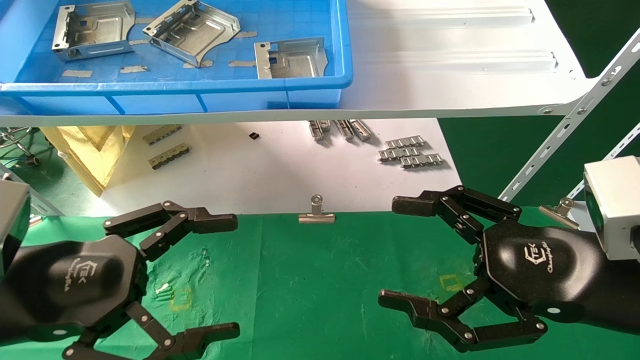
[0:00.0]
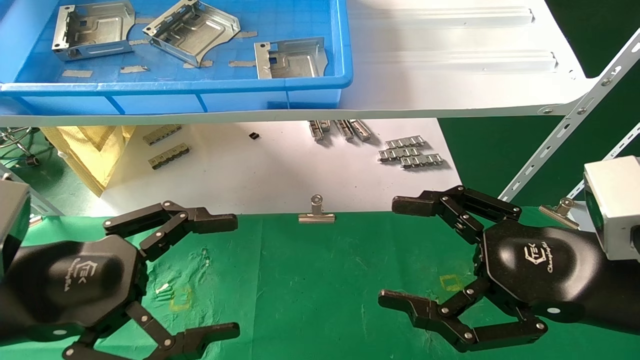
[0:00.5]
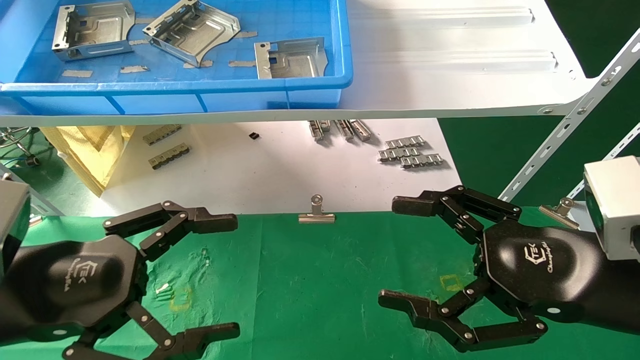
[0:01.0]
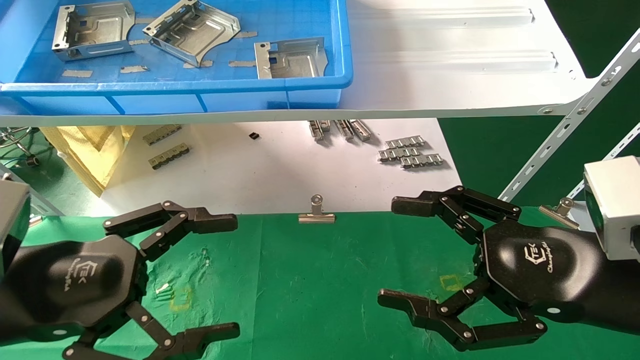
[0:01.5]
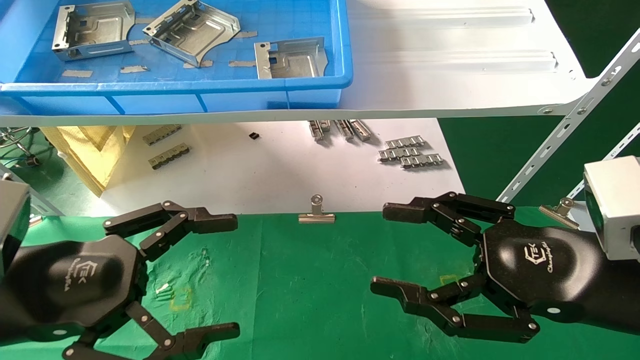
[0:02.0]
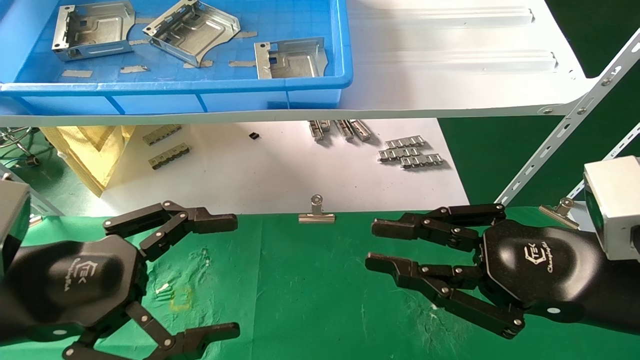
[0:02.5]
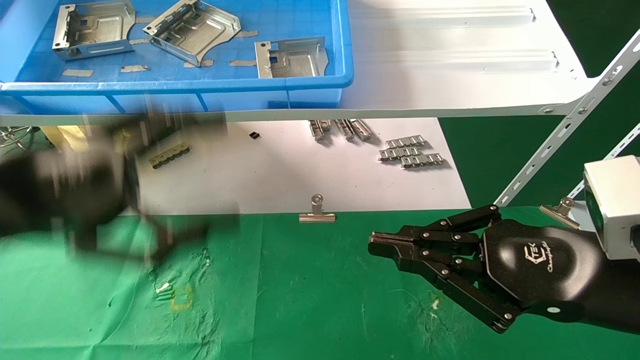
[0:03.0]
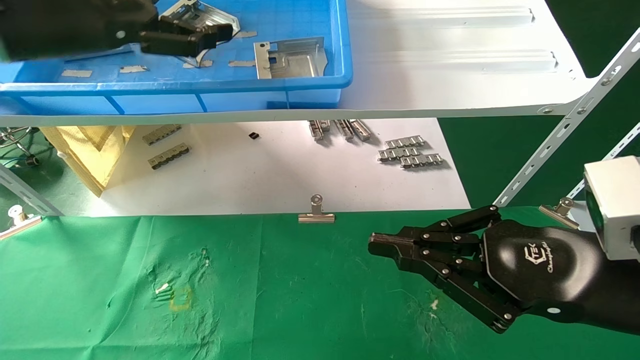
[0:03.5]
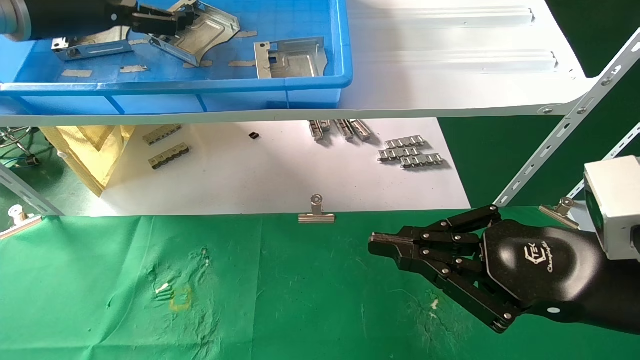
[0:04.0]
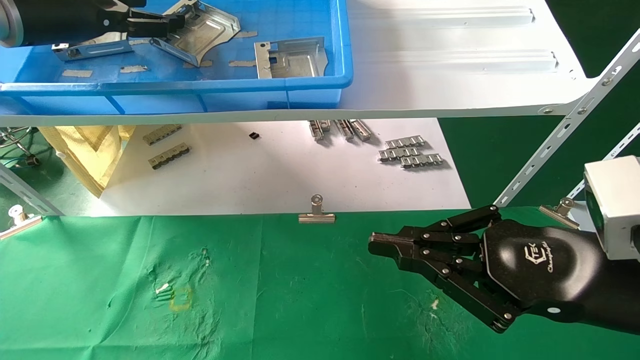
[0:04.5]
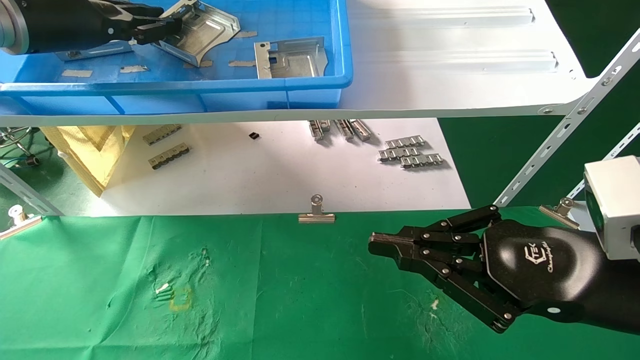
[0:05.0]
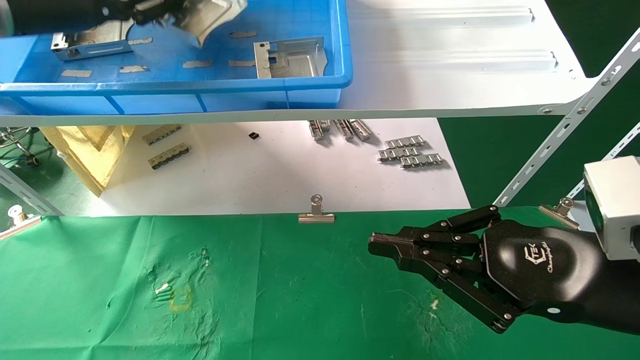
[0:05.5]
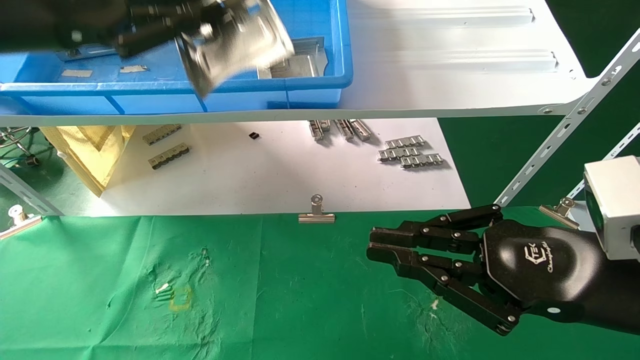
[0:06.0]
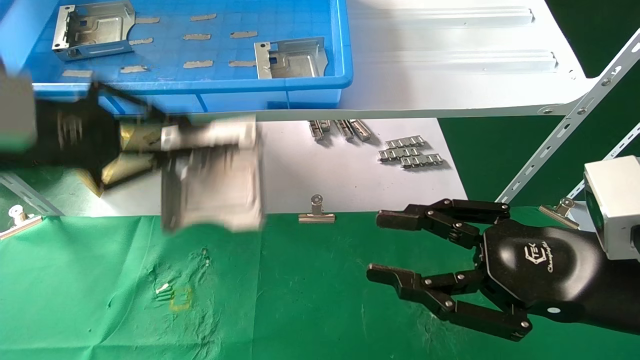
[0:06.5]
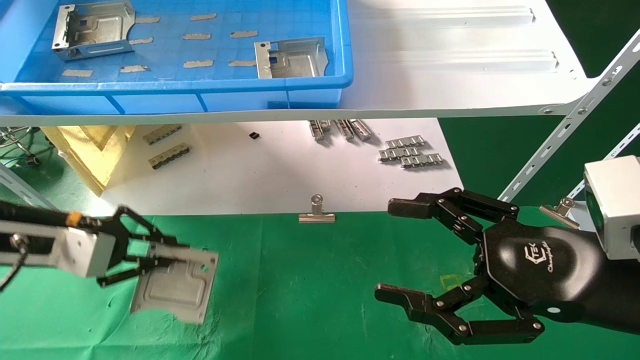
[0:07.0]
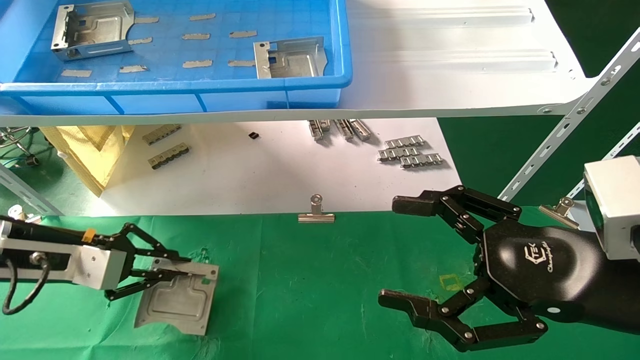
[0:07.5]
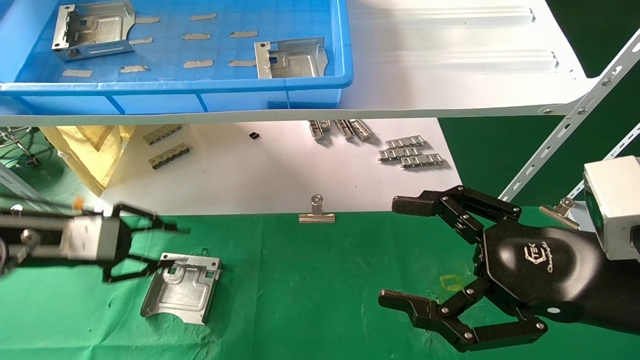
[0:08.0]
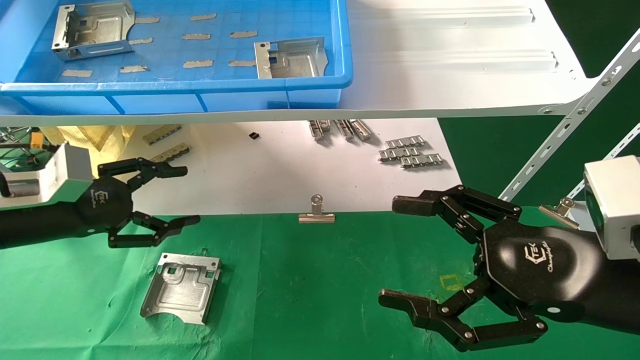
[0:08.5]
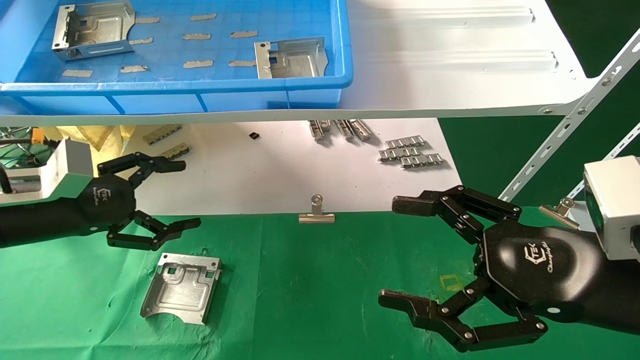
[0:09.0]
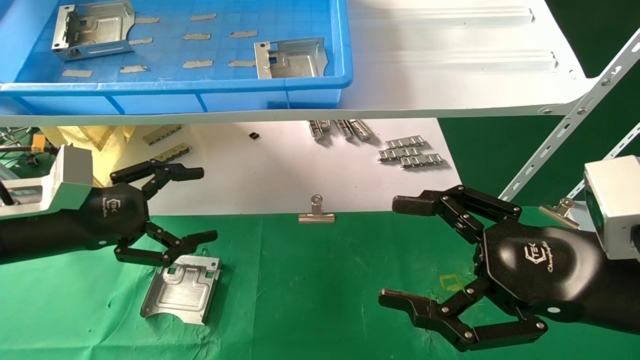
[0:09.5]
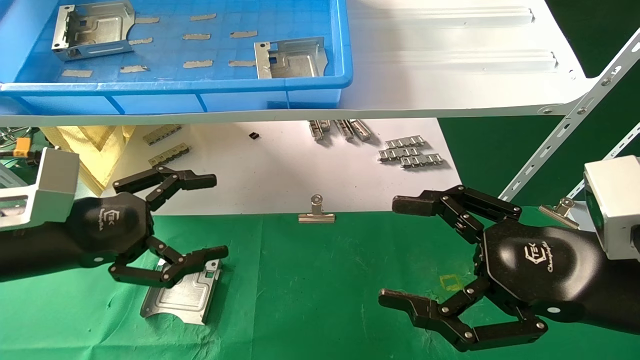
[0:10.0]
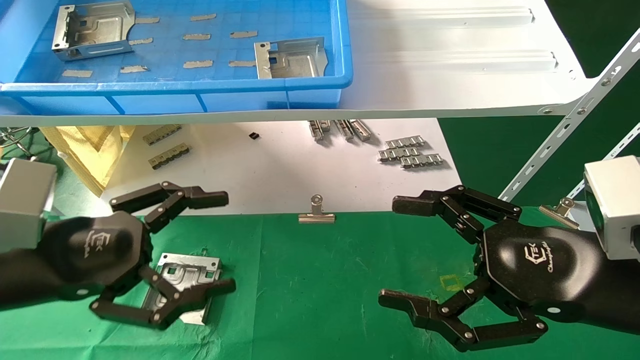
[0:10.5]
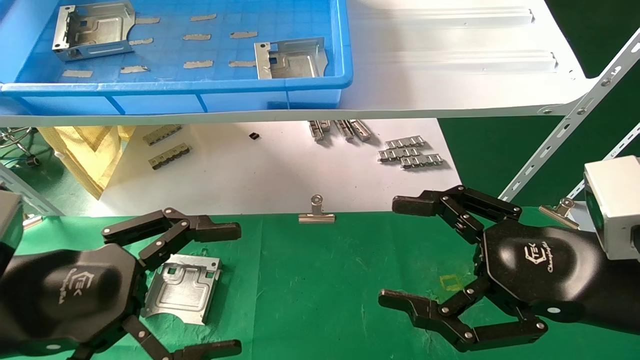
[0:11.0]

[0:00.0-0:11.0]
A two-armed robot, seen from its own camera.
Task of the whole recording: use the mechanical arm to pick up the parts and place them on the table.
Step, 0:03.5 to 0:05.0: Pick up the hard drive bracket from the feeding area.
Step, 0:05.5 to 0:08.0: Place the hard drive bracket into the box.
0:00.0 to 0:02.0: Both grippers stay put.
0:02.0 to 0:03.5: The right gripper closes up, while the left gripper shifts some 25 cm upward and forward.
0:03.5 to 0:05.5: The left gripper closes up.
0:05.5 to 0:07.5: The left gripper goes approximately 25 cm downward, while the right gripper opens up.
0:07.5 to 0:09.0: The left gripper opens up.
0:09.0 to 0:11.0: The left gripper shifts approximately 15 cm backward and to the right.

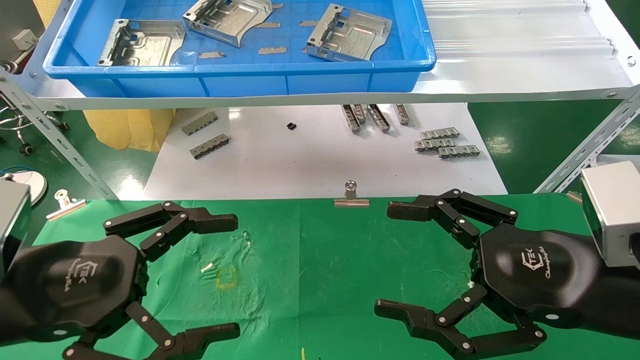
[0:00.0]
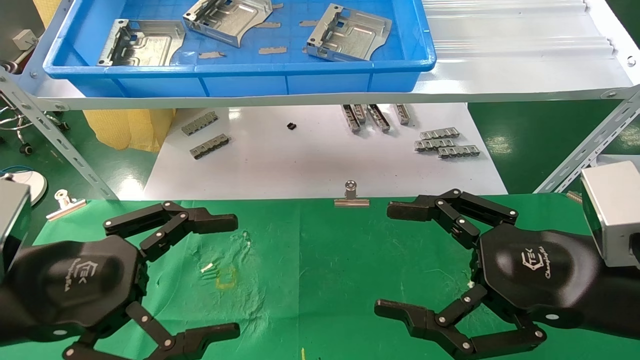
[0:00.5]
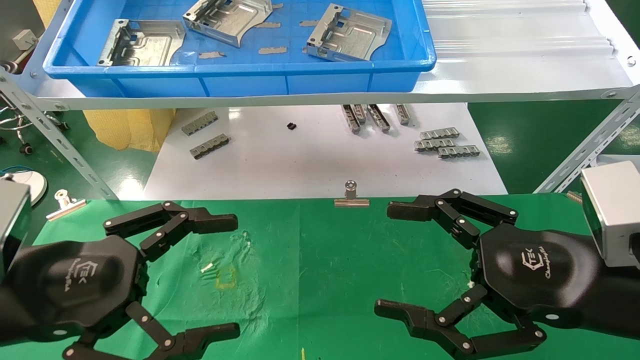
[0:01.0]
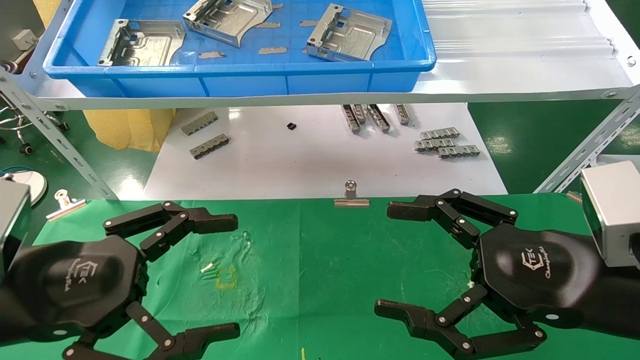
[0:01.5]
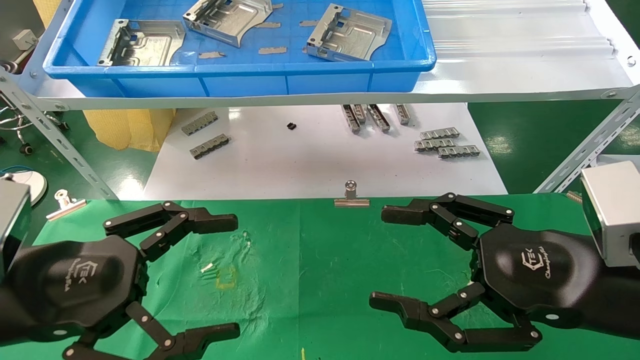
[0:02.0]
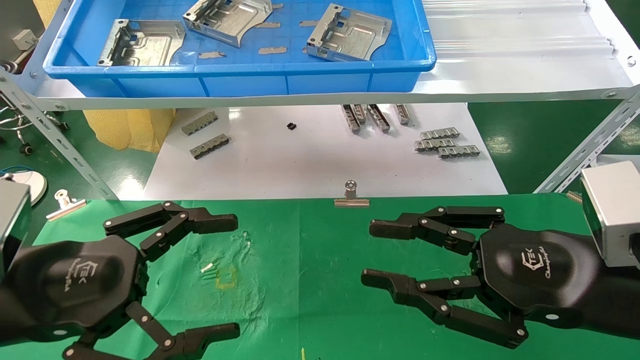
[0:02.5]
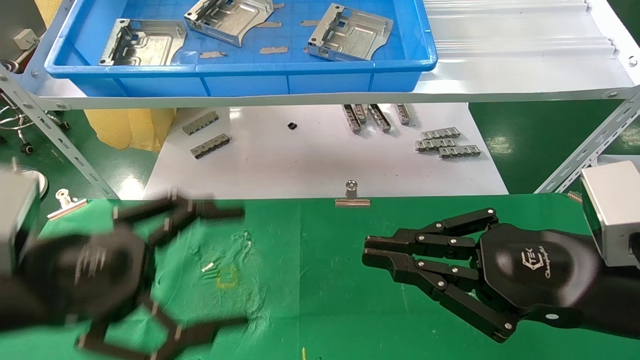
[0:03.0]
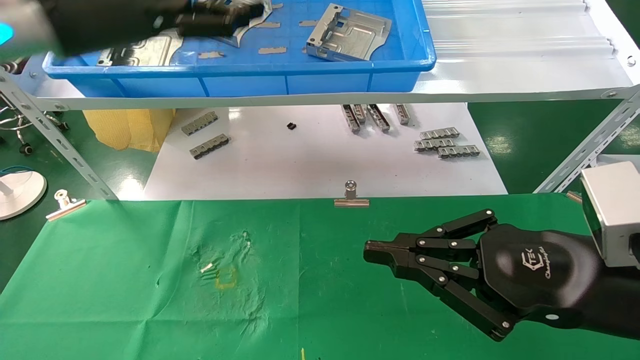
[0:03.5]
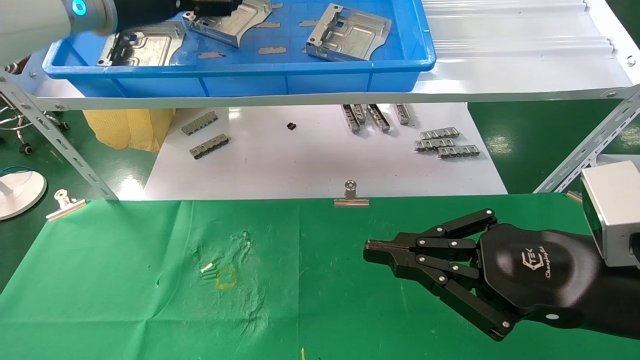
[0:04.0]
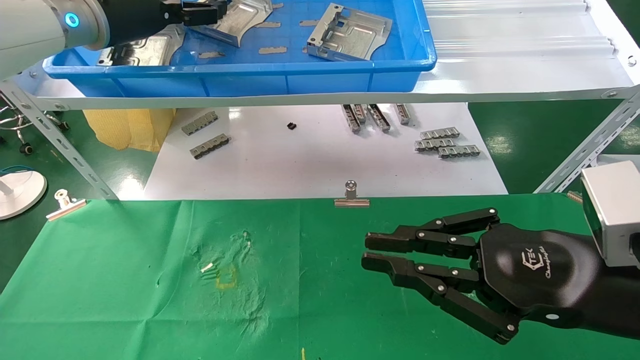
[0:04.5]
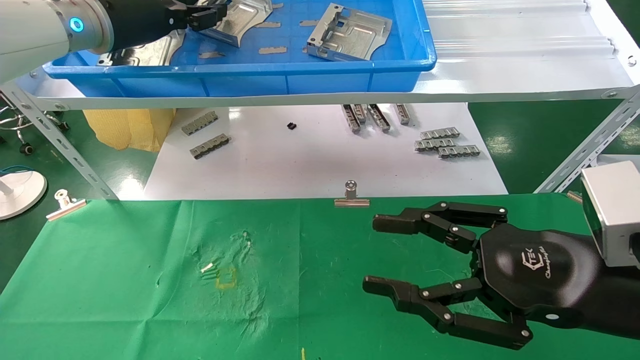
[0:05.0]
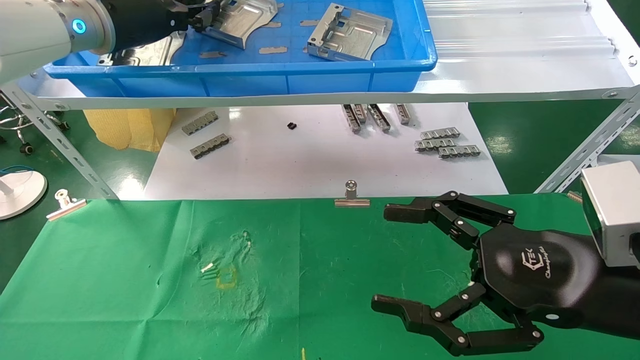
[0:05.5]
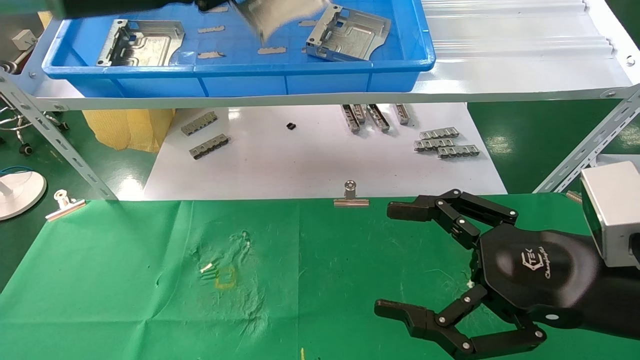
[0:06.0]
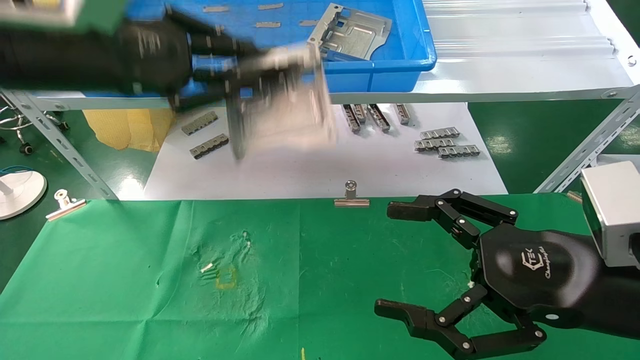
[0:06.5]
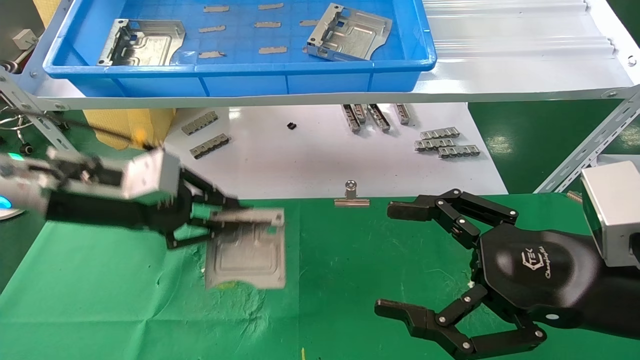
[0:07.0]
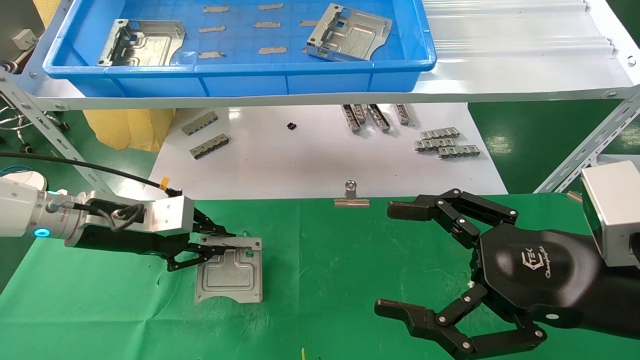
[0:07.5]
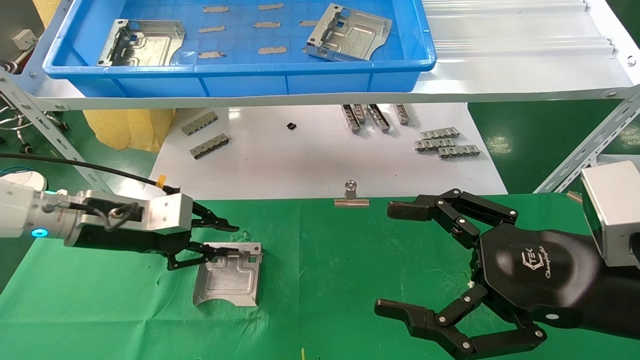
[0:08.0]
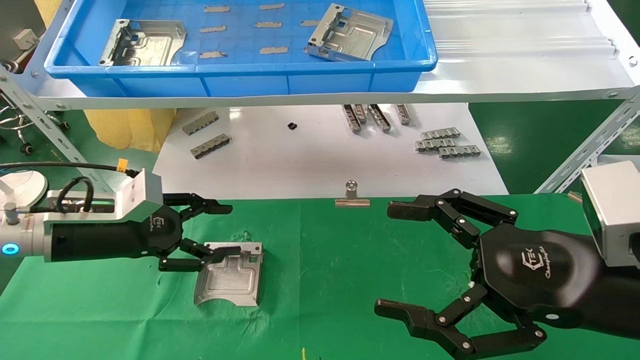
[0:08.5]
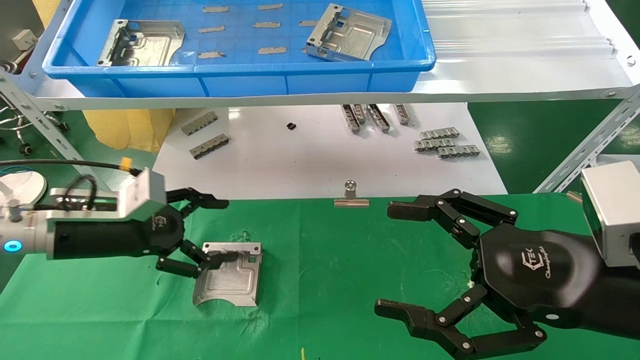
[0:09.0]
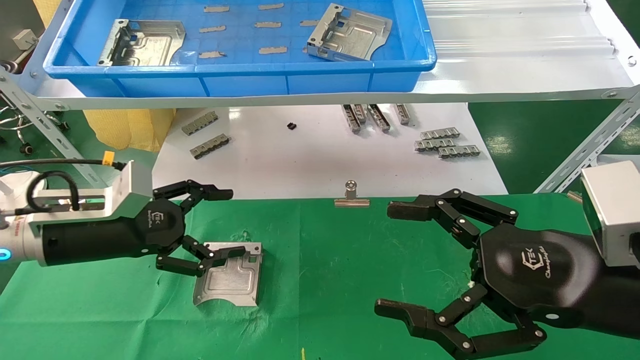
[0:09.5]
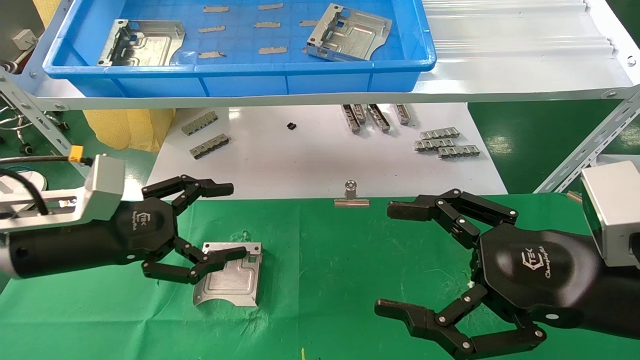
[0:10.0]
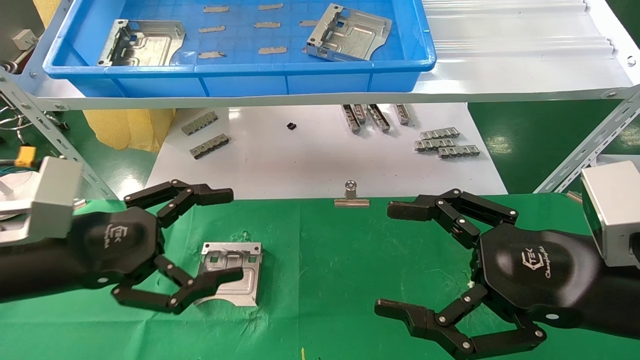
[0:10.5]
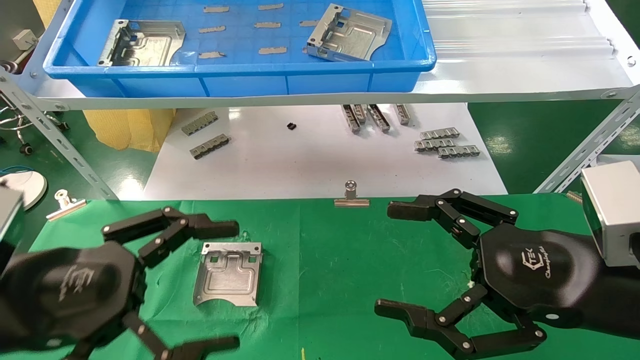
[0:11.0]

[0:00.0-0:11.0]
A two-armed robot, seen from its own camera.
Task of the whole recording: use the mechanical arm to pick up the parts and place them on the table.
Step, 0:03.5 to 0:05.0: Pick up the hard drive bracket from the feeding area.
Step, 0:05.5 to 0:07.5: Place the hard drive bracket into the box.
0:00.0 to 0:02.0: The two grippers keep their place.
0:02.0 to 0:03.5: The left gripper heads upward and forward, covering about 25 cm; the right gripper closes.
0:03.5 to 0:05.5: The right gripper opens; the left gripper moves forward, roughly 5 cm, and closes up.
0:05.5 to 0:07.5: The left gripper heads downward, covering approximately 25 cm.
0:07.5 to 0:09.0: The left gripper opens its fingers.
0:09.0 to 0:11.0: The left gripper heads backward, covering approximately 15 cm.
